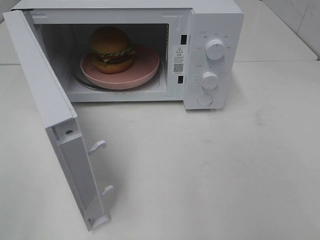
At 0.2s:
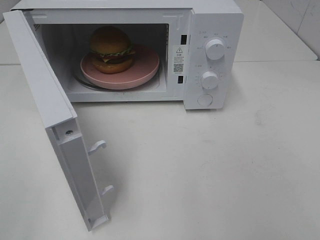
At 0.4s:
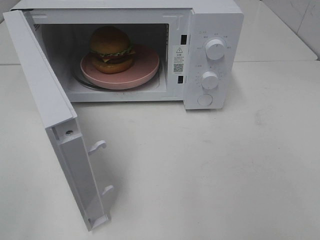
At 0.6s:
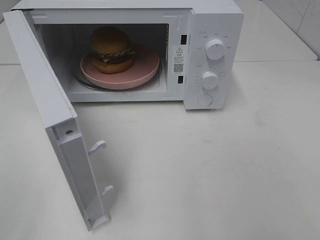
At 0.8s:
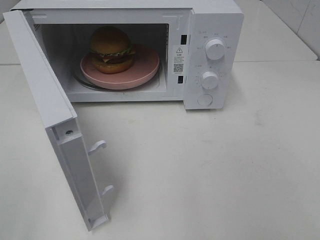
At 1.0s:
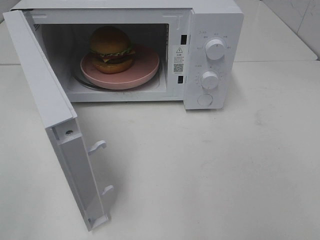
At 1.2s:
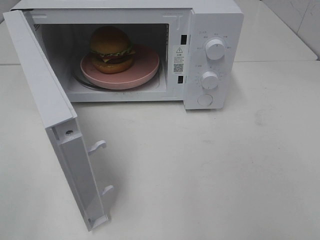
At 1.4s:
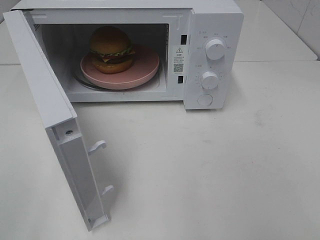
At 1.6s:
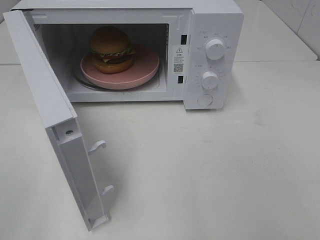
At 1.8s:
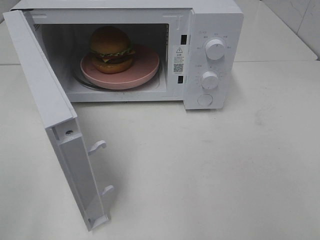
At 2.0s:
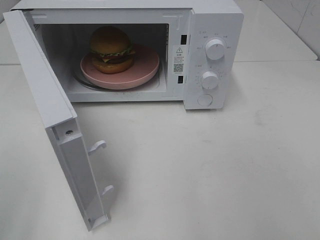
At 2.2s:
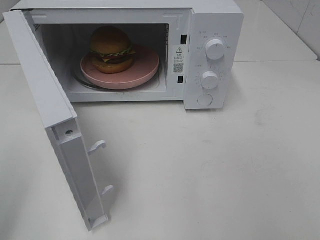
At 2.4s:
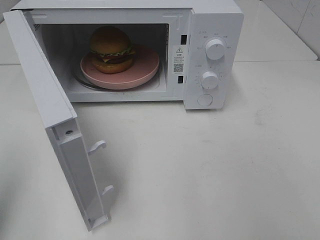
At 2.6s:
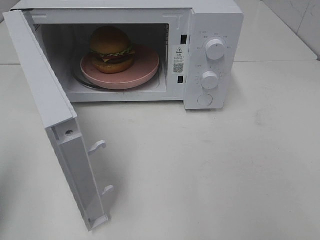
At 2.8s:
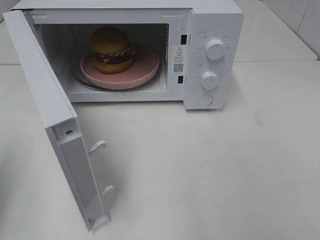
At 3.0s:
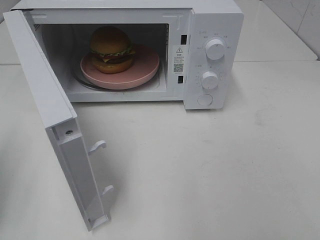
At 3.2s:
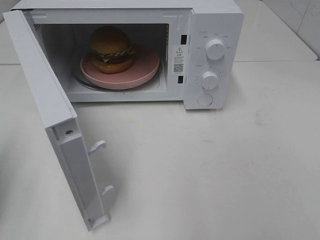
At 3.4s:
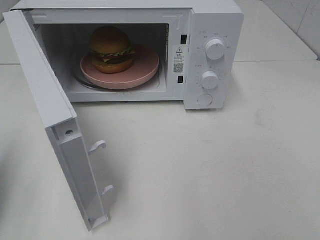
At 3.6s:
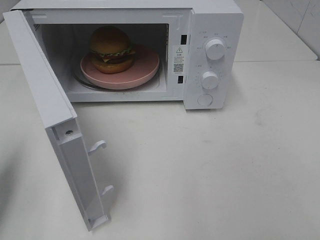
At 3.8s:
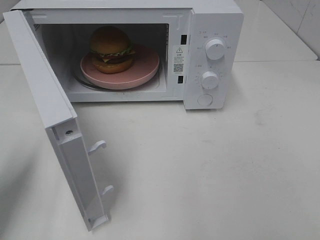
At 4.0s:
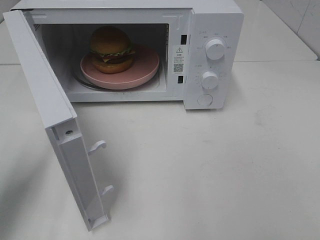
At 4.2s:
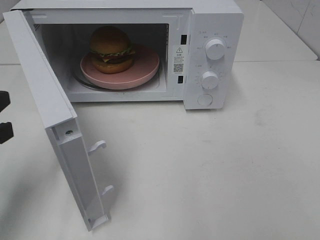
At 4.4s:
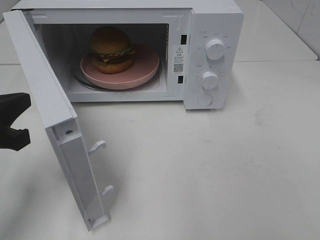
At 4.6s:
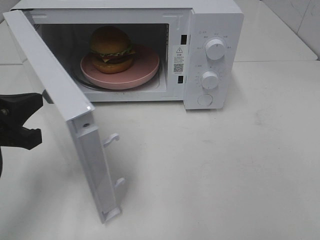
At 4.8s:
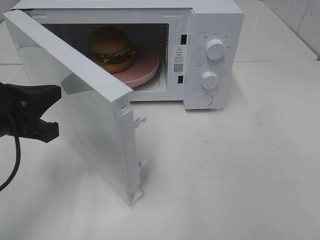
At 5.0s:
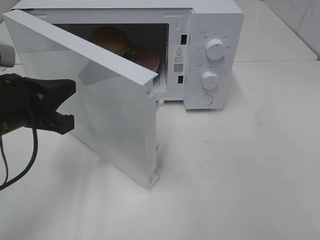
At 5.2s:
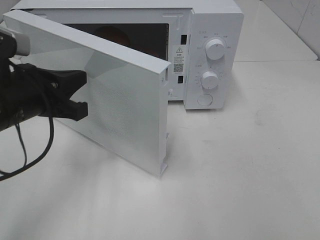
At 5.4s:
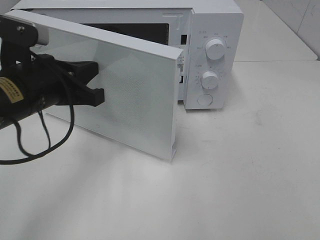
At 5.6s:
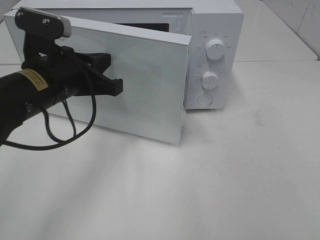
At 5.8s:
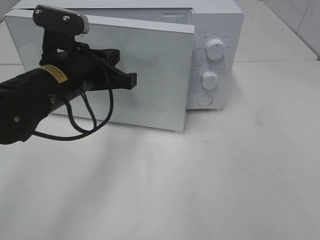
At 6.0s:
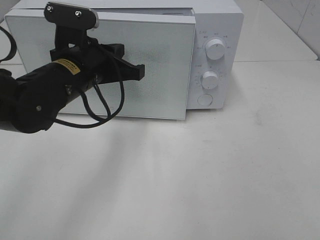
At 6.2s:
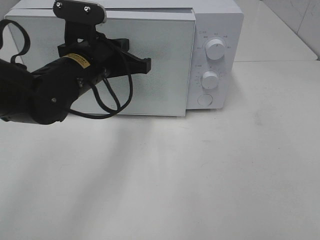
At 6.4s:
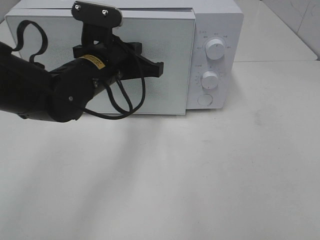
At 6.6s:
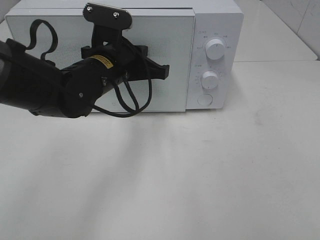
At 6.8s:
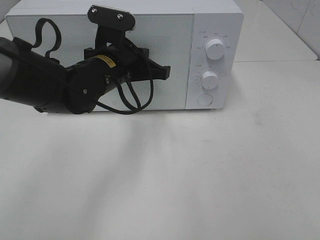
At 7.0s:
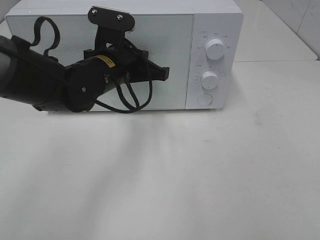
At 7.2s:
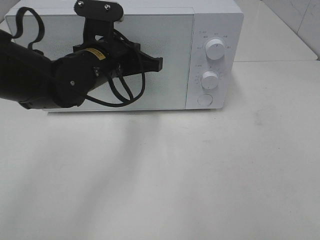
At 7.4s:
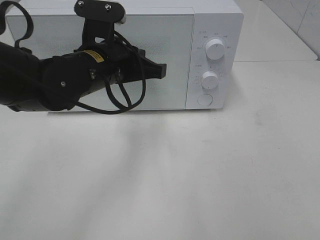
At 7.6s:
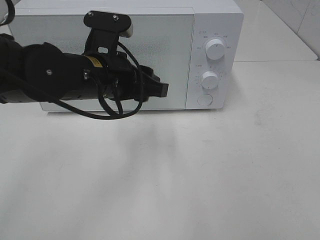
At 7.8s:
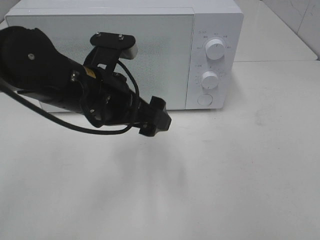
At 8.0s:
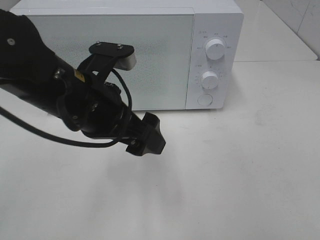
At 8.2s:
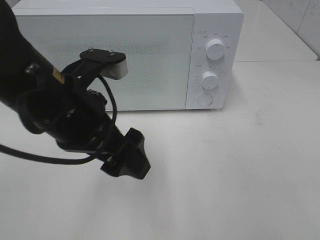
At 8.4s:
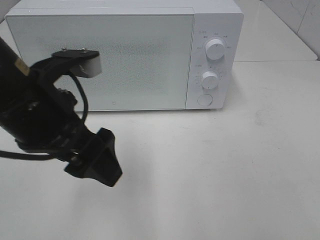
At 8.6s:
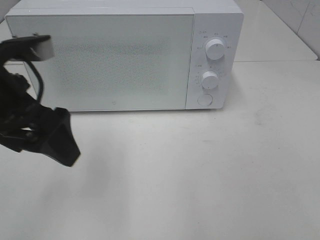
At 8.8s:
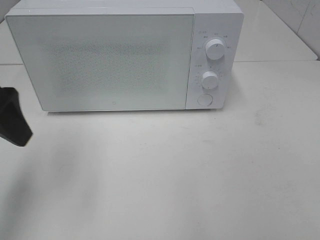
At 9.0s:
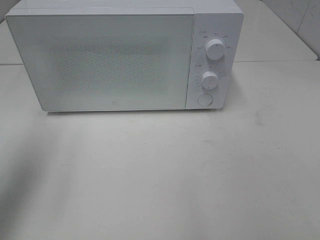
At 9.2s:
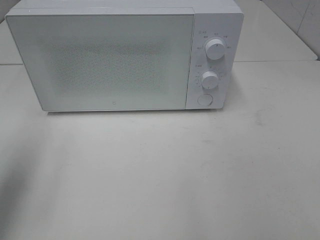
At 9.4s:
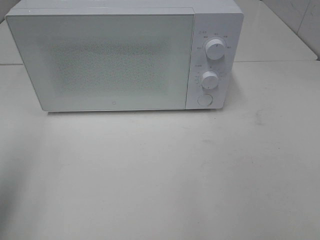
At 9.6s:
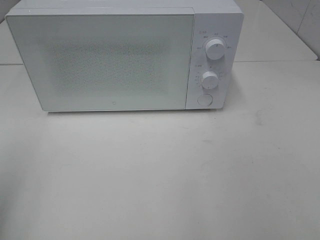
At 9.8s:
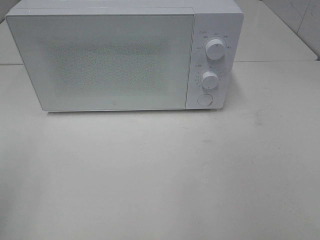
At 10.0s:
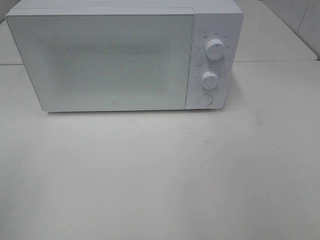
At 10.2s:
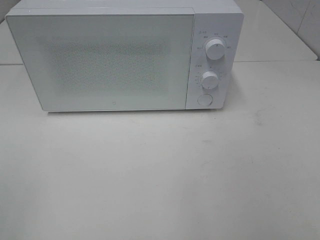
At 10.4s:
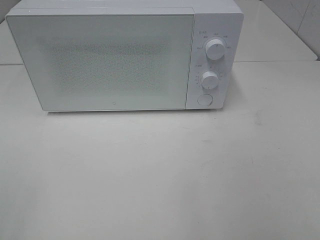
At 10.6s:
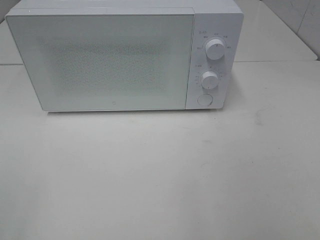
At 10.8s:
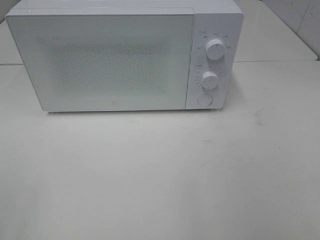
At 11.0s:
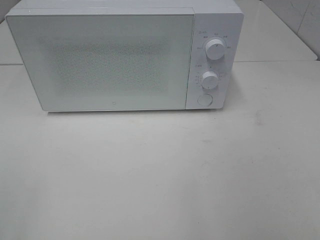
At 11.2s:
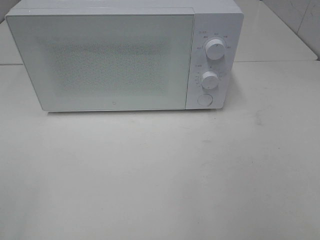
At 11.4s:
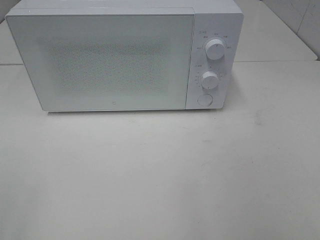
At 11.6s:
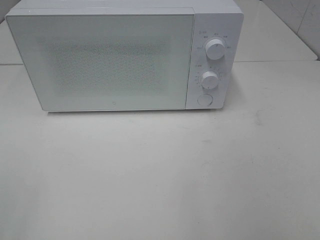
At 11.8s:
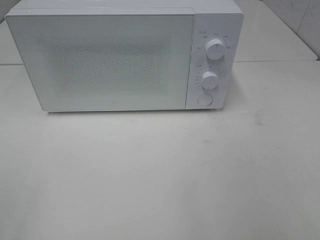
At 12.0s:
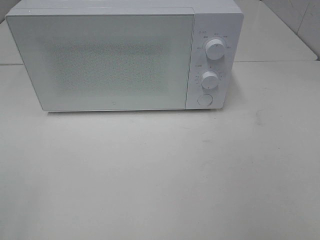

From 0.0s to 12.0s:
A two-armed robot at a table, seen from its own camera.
Task of the whole recording: Heat the burger.
Step, from 0.0s to 7.4s: Left hand: close the microwave door.
From 3.0s to 4.4s: The left gripper travels to the right by approximately 10 cm.
From 4.4s to 6.0s: The left gripper shifts roughly 20 cm to the right and forward.
From 6.0s to 7.6s: The left gripper opens up.
From 7.6s to 9.0s: The left gripper moves to the left and upward, roughly 25 cm, and opens.
From 9.0s to 10.4s: The left gripper is displaced backward by some 20 cm.
From 10.4s to 12.0s: Both grippers stay put.

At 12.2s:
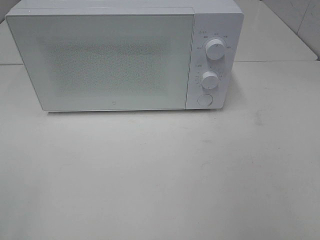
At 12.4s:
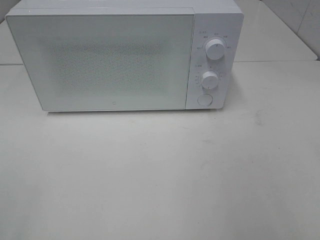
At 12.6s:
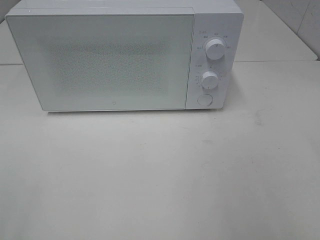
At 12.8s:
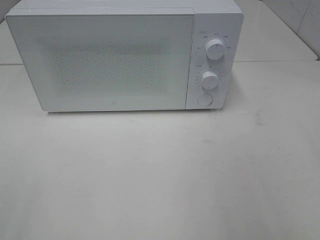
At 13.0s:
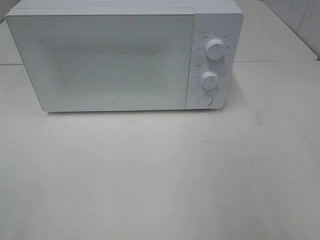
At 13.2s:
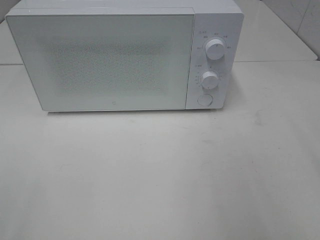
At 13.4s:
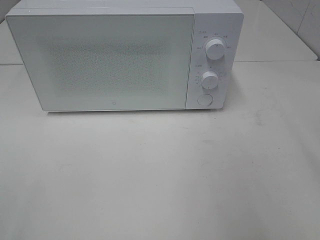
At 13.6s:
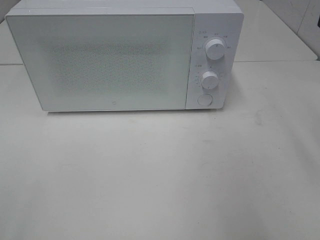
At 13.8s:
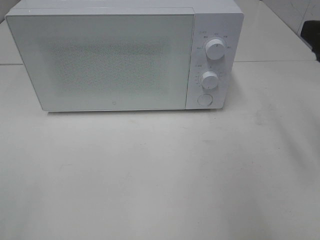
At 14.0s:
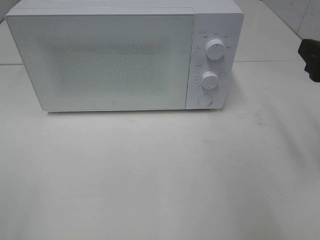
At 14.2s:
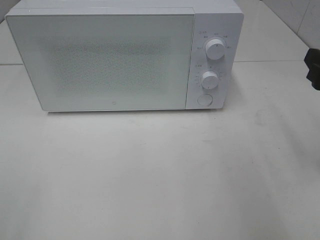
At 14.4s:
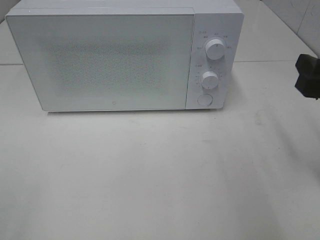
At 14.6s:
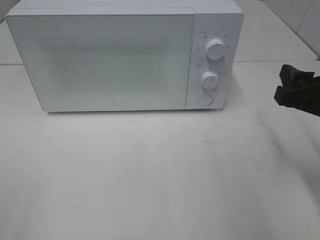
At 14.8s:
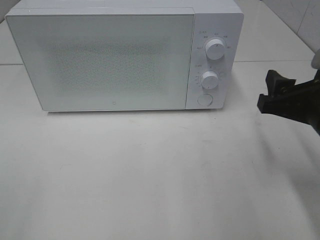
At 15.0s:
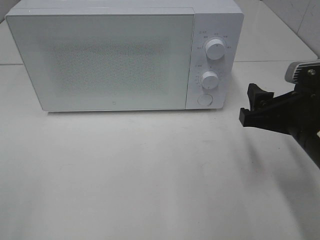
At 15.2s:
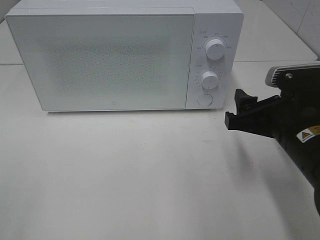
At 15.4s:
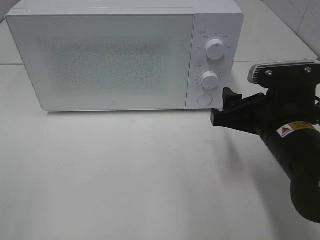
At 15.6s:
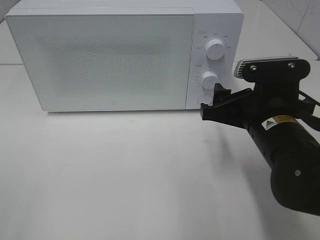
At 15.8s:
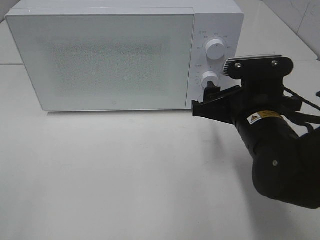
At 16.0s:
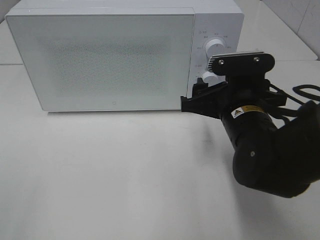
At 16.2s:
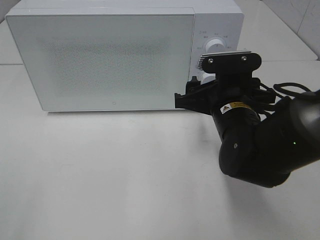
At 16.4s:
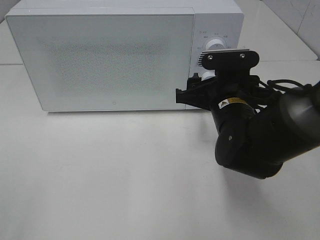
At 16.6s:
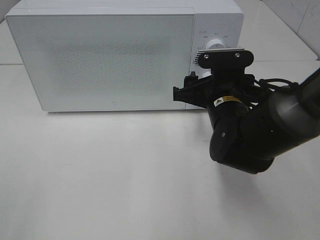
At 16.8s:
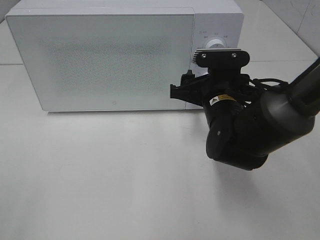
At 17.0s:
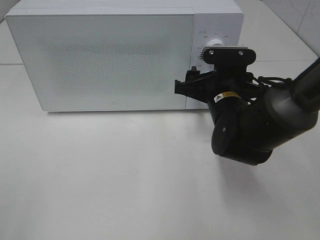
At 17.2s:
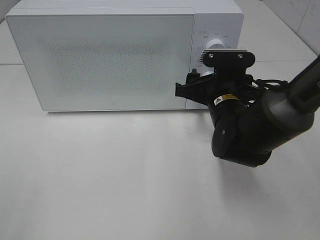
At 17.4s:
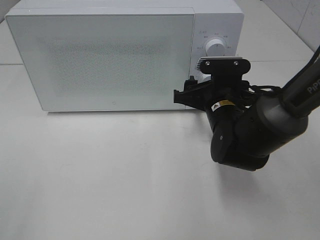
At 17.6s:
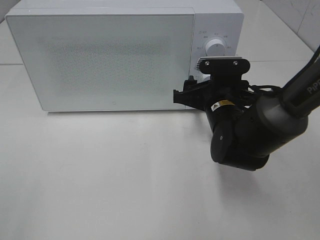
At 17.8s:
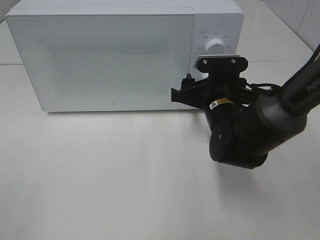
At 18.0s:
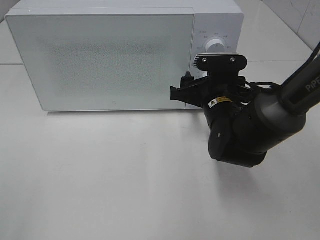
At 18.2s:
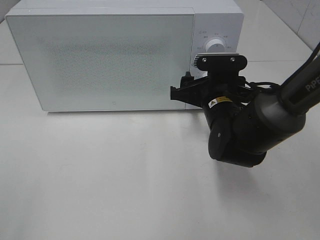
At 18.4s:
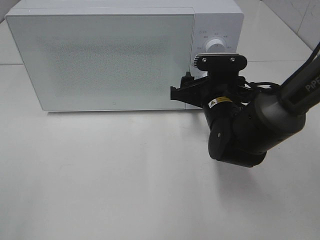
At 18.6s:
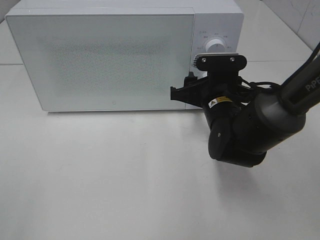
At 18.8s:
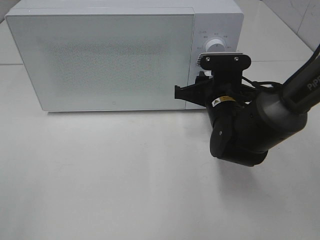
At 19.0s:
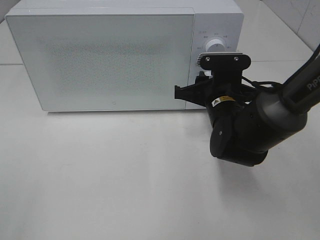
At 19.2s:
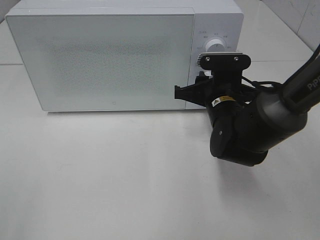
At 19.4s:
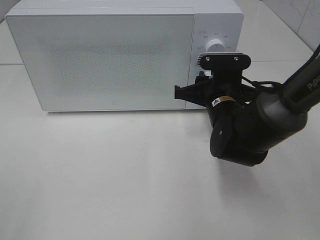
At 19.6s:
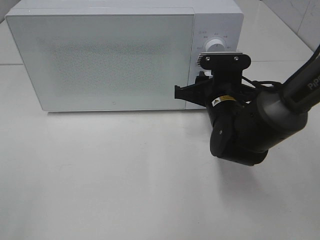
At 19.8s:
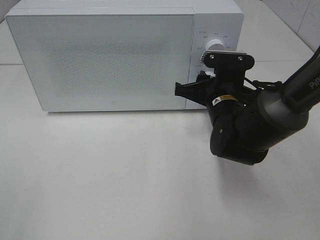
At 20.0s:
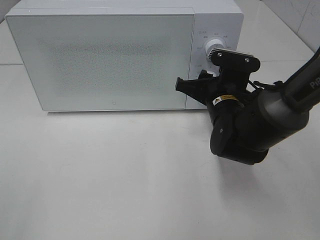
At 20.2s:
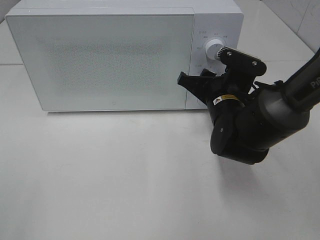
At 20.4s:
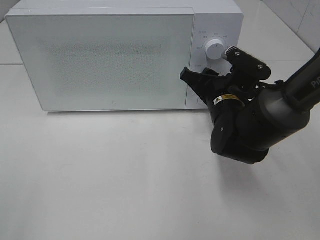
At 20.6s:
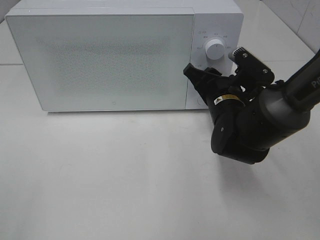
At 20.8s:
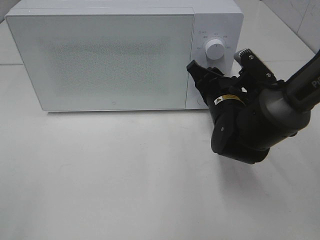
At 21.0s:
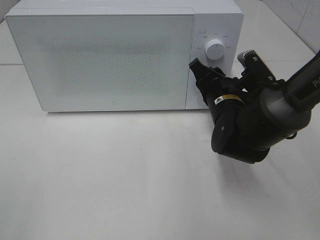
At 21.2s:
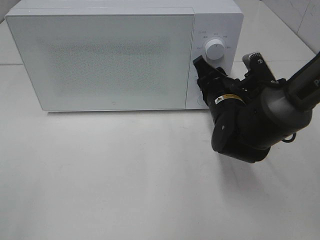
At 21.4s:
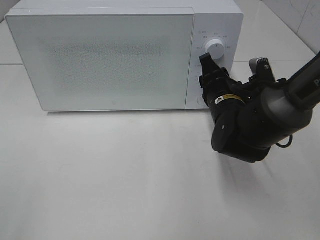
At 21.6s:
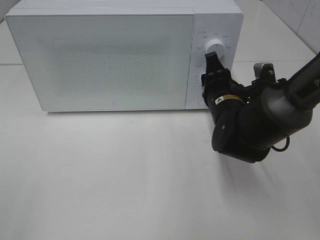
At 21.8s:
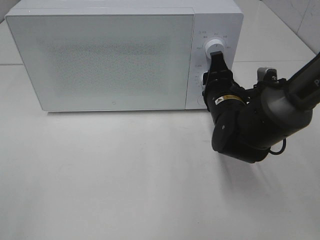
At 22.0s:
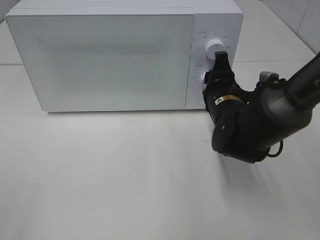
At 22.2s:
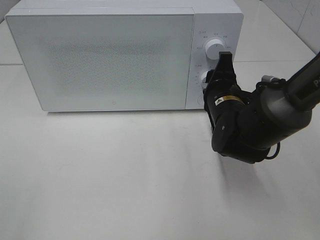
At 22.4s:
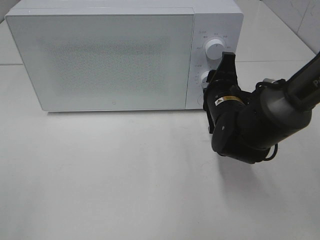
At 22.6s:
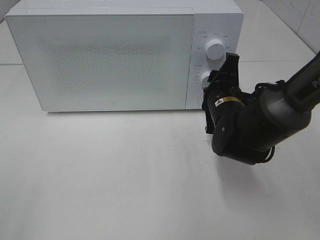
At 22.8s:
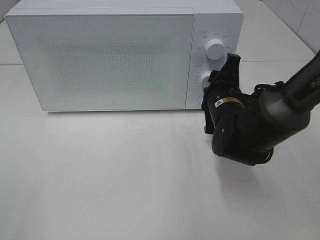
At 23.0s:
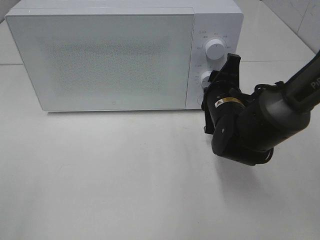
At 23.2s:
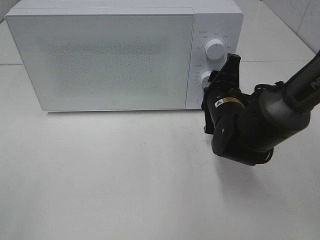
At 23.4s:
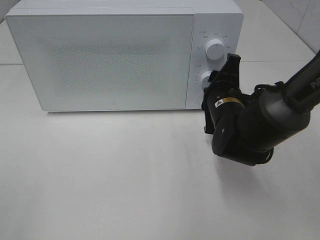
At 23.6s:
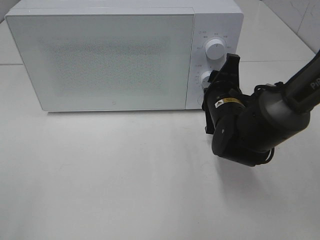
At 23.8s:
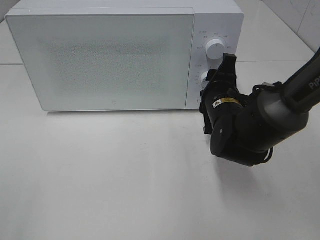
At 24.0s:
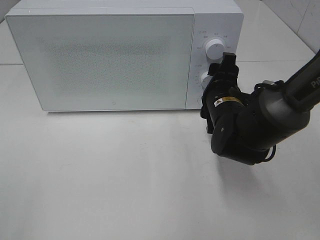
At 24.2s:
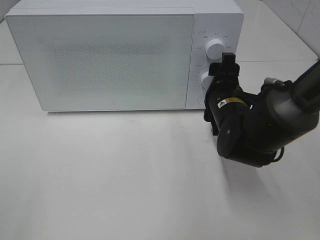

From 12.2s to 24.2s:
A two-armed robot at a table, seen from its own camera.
Task of the whole recording: Heat the burger.
From 12.2s to 13.8s: The right gripper goes about 15 cm forward.
From 13.8s to 15.2s: The right gripper heads downward and to the left, covering about 15 cm.
From 15.2s to 16.6s: The right gripper travels forward and to the left by about 10 cm.
From 16.6s to 18.2s: There are only small adjustments of the grippers.
From 18.2s to 19.8s: The right gripper closes its fingers.
From 22.6s to 24.2s: The right gripper opens.
